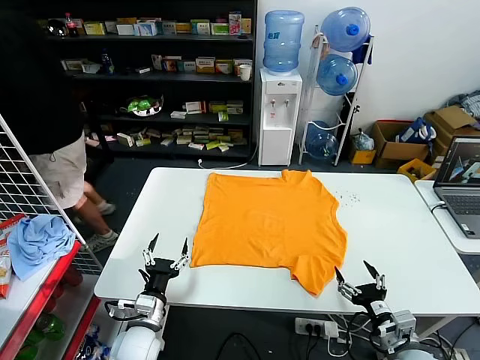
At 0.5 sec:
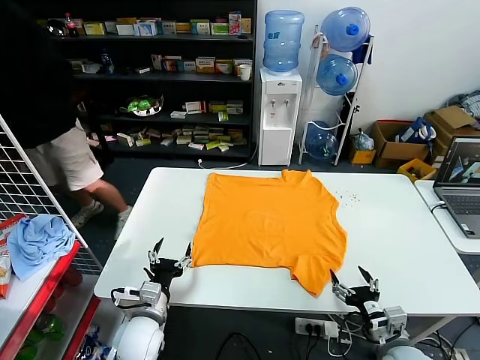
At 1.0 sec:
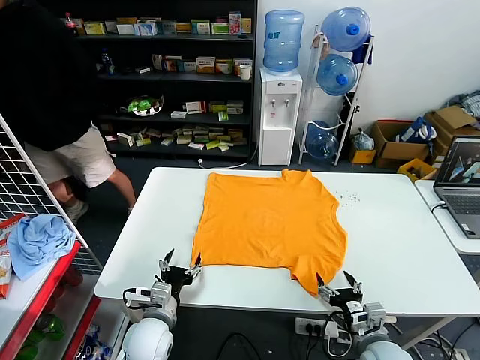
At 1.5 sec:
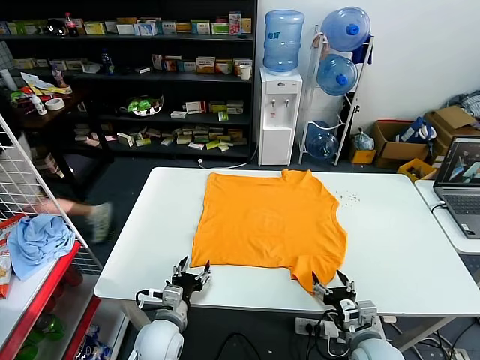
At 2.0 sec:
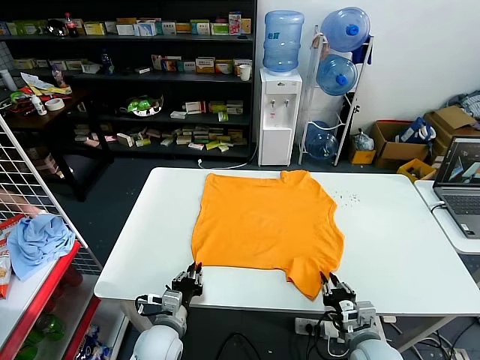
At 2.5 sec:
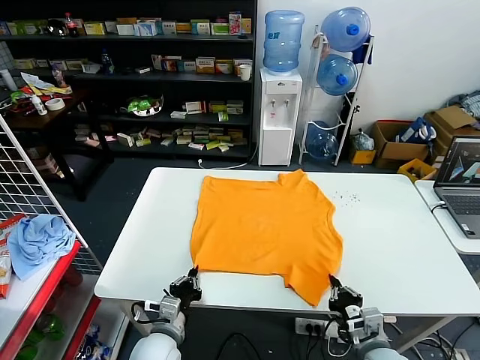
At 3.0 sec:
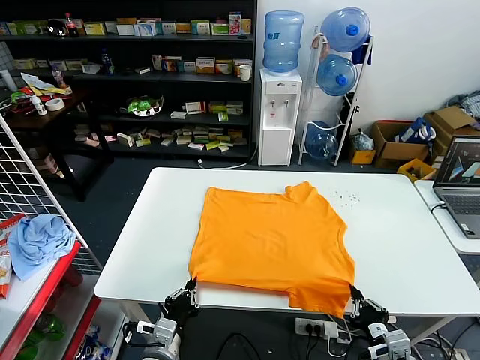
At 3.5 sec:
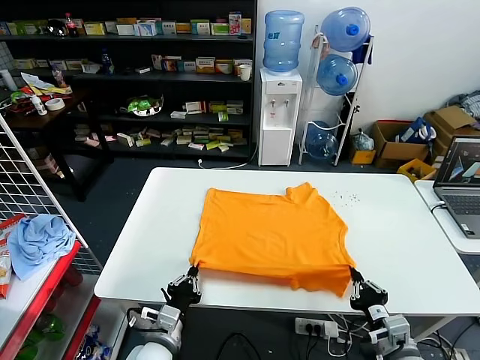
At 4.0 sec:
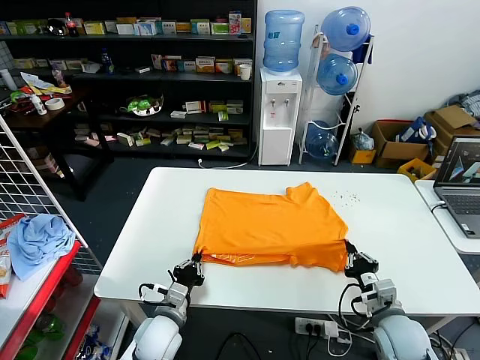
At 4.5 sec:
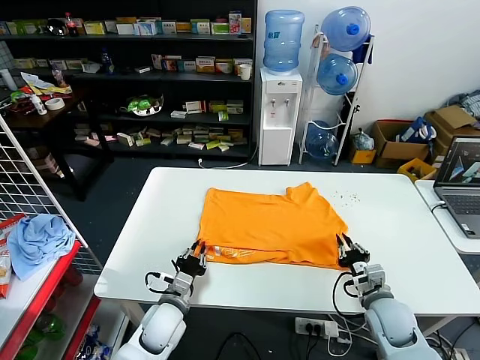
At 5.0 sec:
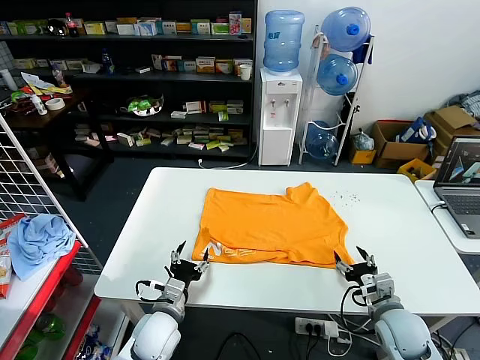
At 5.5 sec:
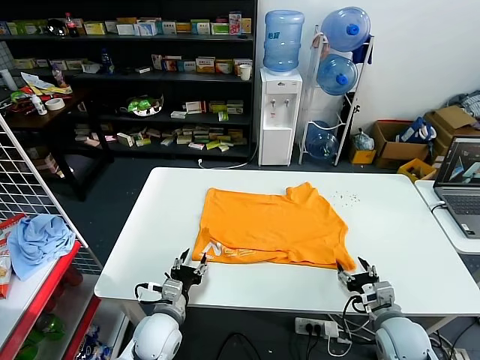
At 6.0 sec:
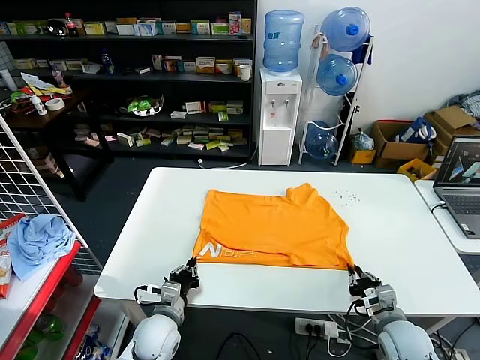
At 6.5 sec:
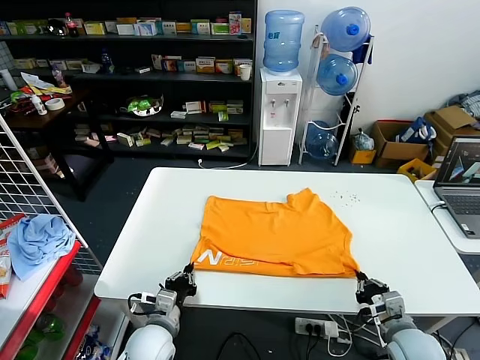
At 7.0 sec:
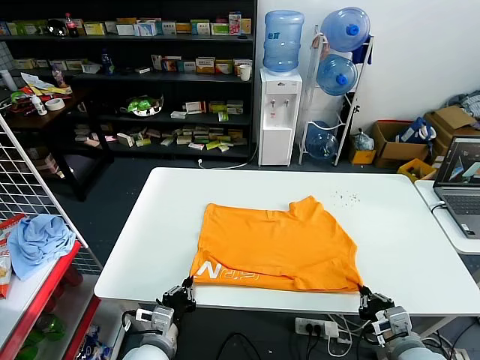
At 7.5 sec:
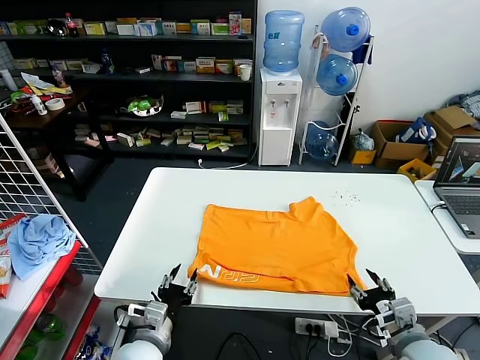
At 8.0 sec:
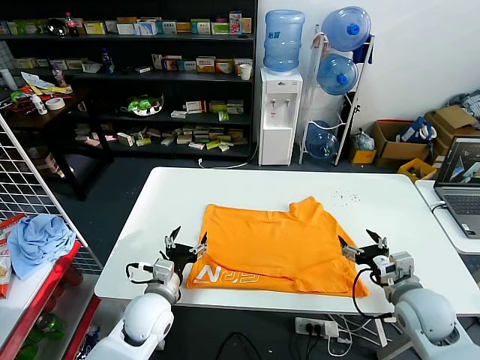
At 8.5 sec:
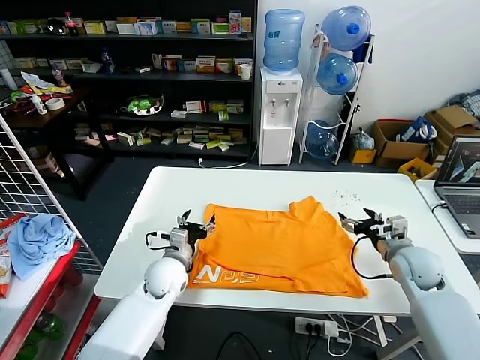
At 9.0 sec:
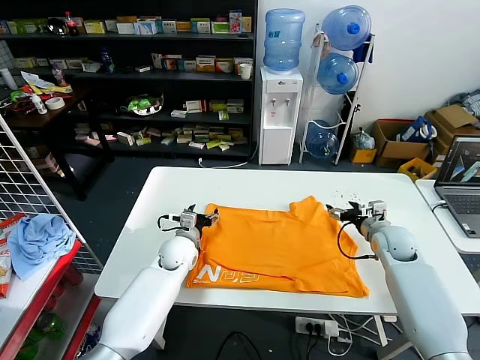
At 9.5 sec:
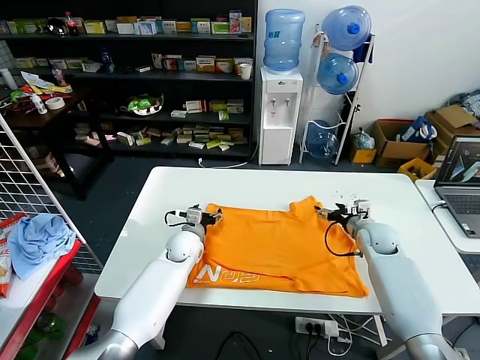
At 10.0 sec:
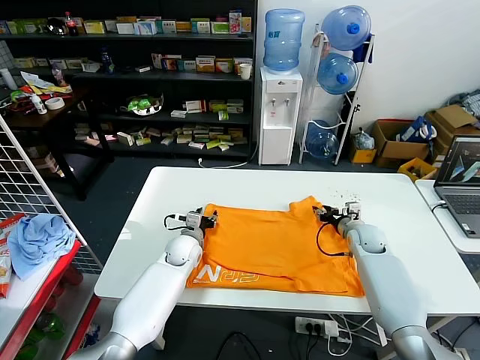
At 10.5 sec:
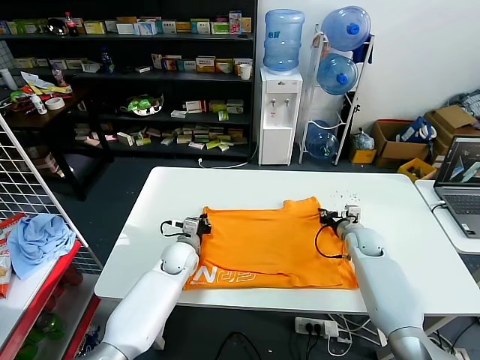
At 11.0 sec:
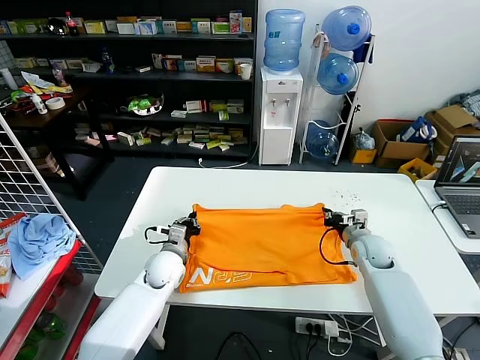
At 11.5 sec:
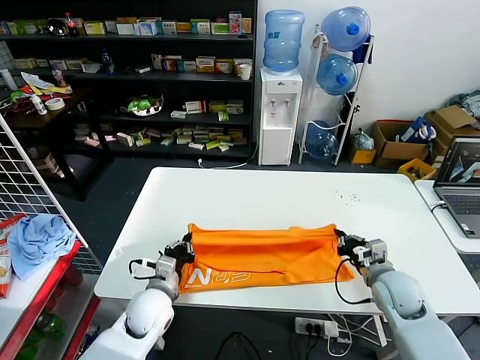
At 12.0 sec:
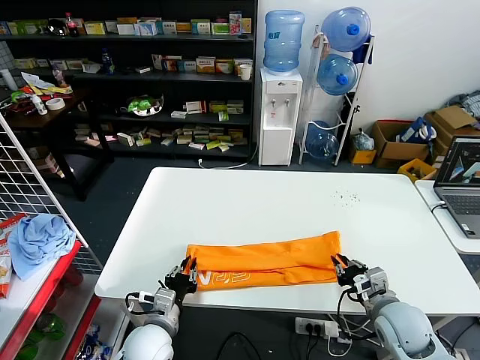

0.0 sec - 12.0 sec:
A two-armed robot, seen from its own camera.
Task of the whole recording: fold and organize the clothes.
Step, 0.0 sec - 2.5 sec: use both grippers simultaneously to clamp the lower edge of the clothing fabric.
Step, 3.0 sec - 5.0 sec: use both grippers to drag the lower edge of the fabric forward and fold it over the upper edge.
Step, 5.5 sec - 7.5 sec: Drag the clothes downward with both gripper.
Step, 8.0 sec - 10.5 sec: use both grippers simultaneously to clamp the upper edge of the clothing fabric.
2.0 sec - 4.0 sec: The left gripper moves roughly 5 cm backward and comes back. Meanwhile the right gripper ends up about 10 cm from where it was.
4.0 sec - 6.0 sec: The right gripper opens and closes again; the left gripper opens, then closes once more.
6.0 sec - 8.0 sec: The left gripper heads upward, covering approximately 5 cm, moves some 5 cm backward and comes back, and opens up, while the right gripper shifts roughly 10 cm upward, and opens up.
8.0 sec - 10.0 sec: Both grippers move forward, about 20 cm. The right gripper closes its fingers.
10.0 sec - 12.0 sec: The two grippers go some 25 cm backward. The left gripper closes up.

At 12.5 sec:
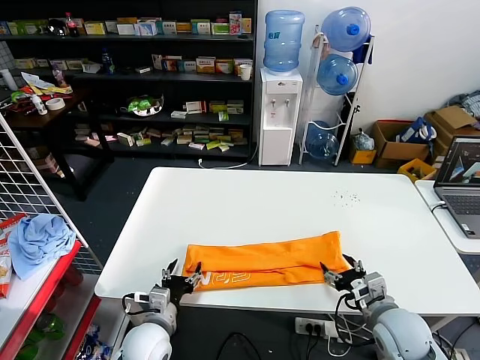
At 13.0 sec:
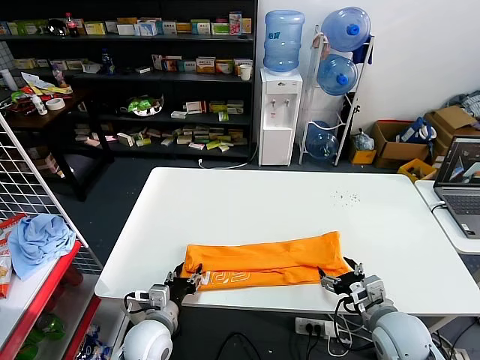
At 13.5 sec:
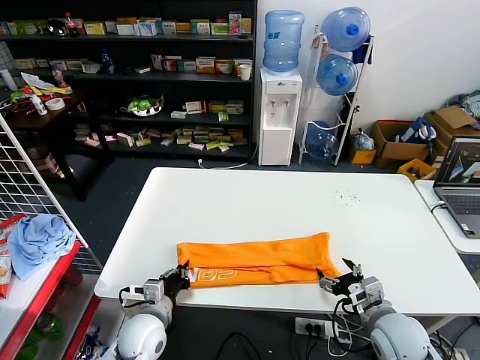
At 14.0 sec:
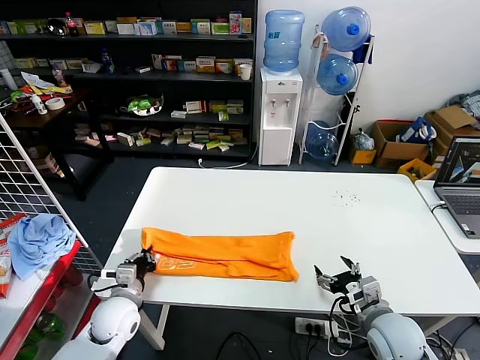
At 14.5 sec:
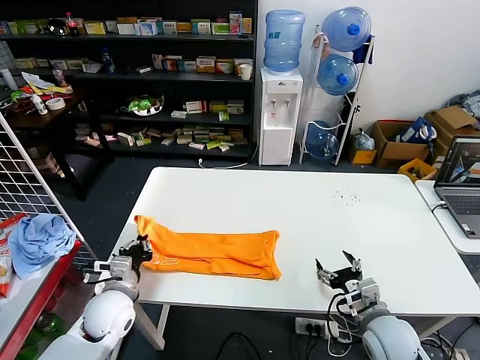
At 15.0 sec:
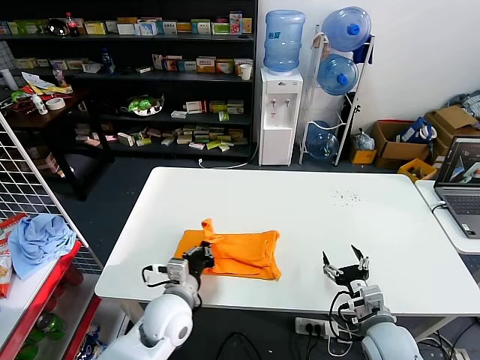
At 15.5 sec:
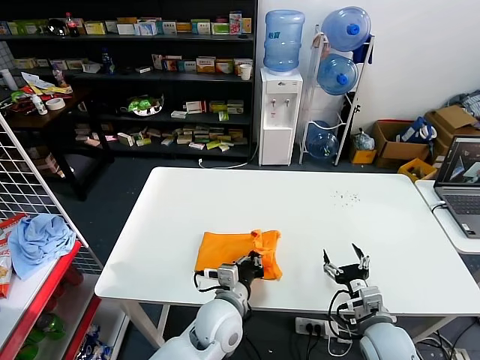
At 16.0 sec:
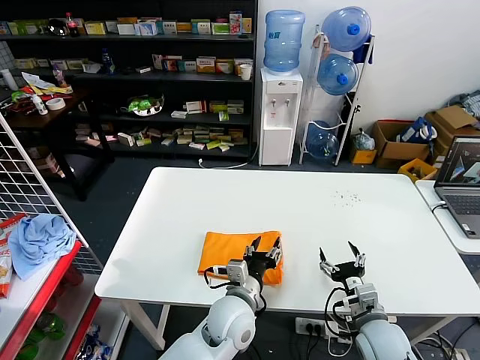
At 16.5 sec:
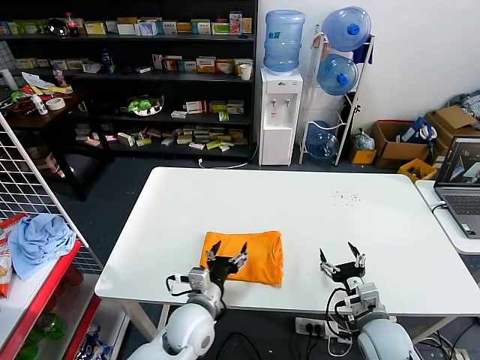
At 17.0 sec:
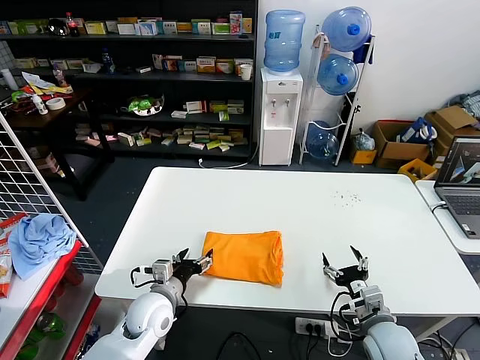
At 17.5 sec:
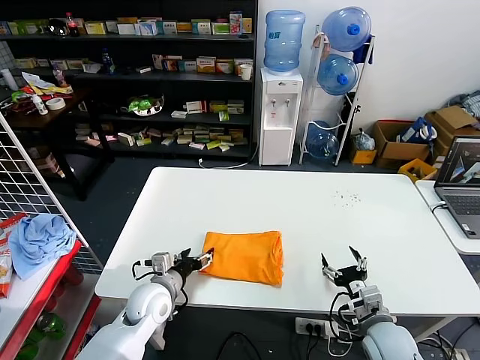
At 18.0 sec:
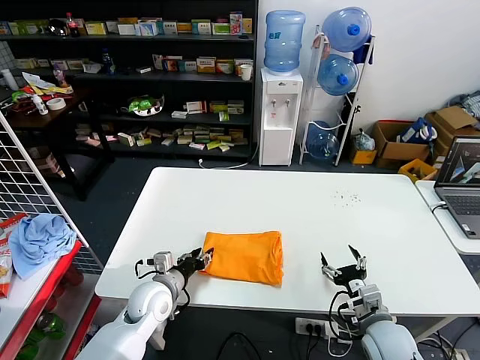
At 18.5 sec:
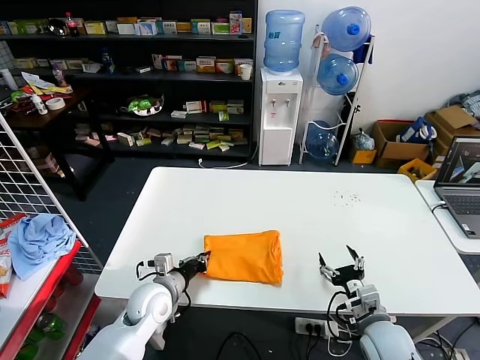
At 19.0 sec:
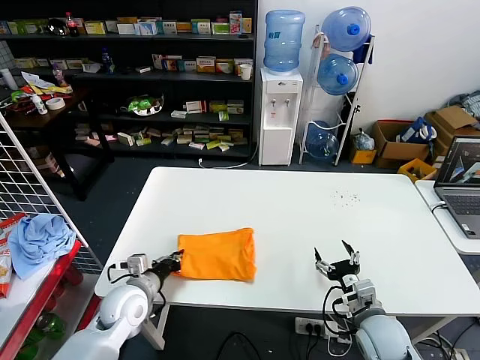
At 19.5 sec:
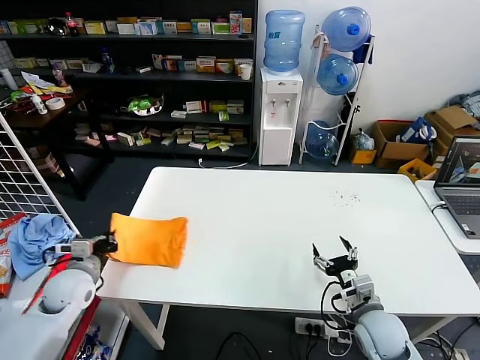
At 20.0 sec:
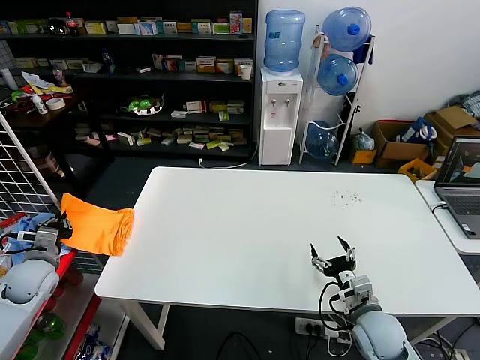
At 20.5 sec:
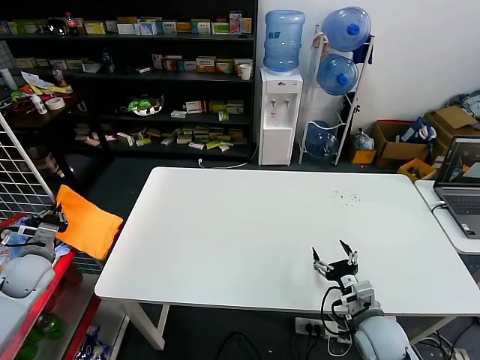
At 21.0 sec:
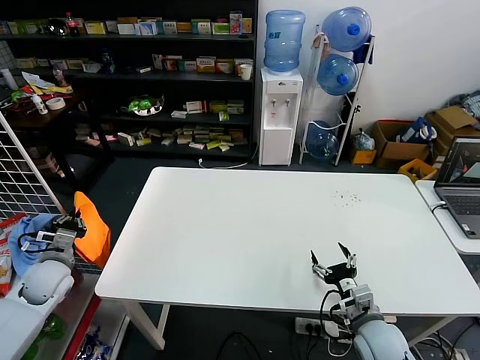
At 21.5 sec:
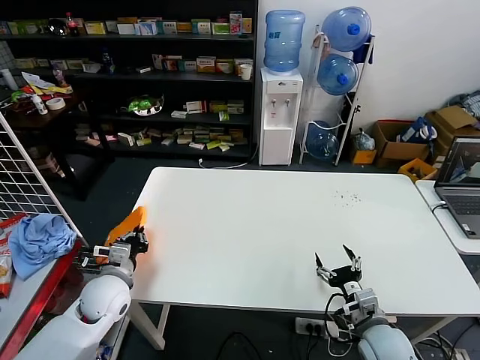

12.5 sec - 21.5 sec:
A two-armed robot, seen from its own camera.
Task of the whole recording: fold and organize the clothes.
Step, 13.5 sec - 16.0 sec: use the left gripper to drag the left edge of the fabric to the left and folds it over the right edge.
12.5 sec - 14.5 sec: The left gripper heads to the left, covering approximately 10 cm, and closes its fingers.
14.5 sec - 17.0 sec: The left gripper goes to the right and returns, roughly 25 cm each way, and opens up.
17.0 sec - 19.5 sec: The left gripper goes about 15 cm to the left, and closes up.
19.5 sec - 21.5 sec: The left gripper goes to the left and returns, some 10 cm each way.

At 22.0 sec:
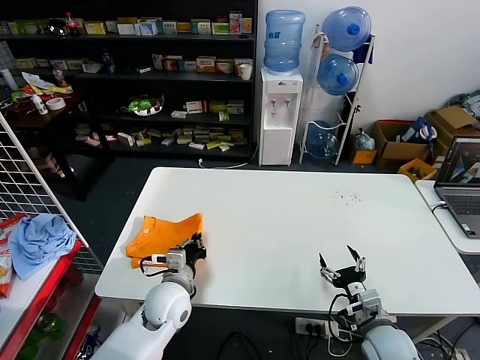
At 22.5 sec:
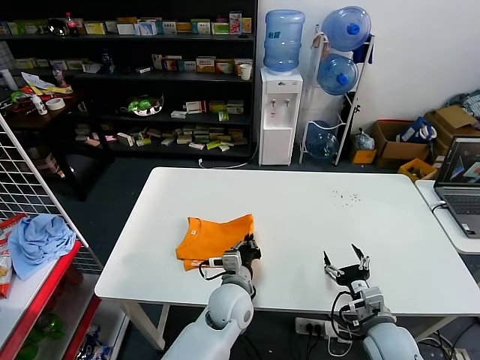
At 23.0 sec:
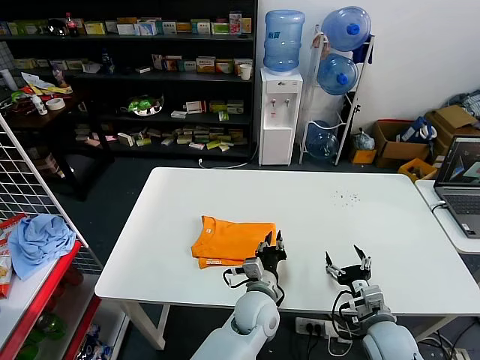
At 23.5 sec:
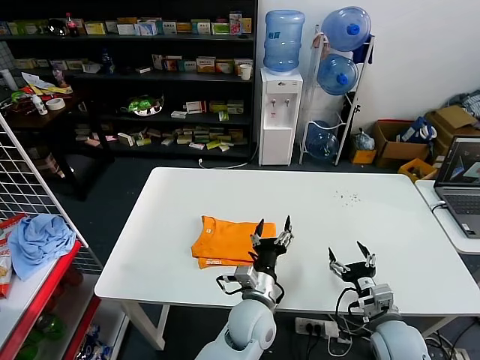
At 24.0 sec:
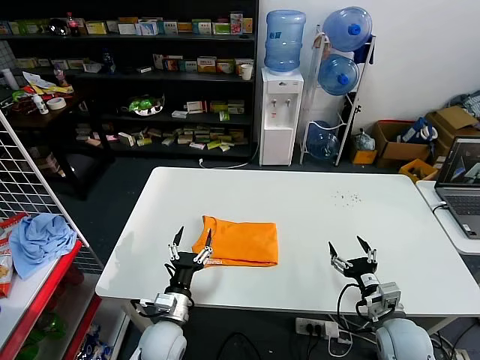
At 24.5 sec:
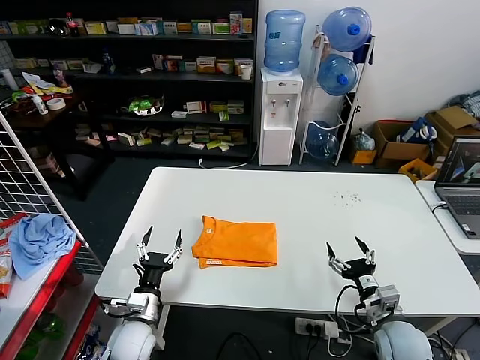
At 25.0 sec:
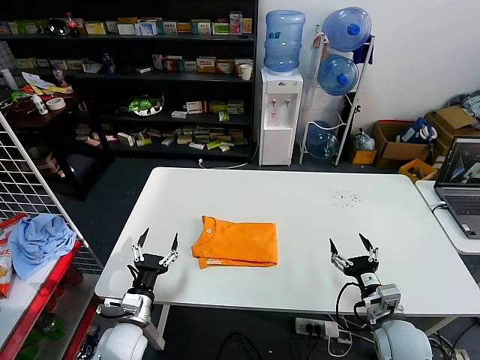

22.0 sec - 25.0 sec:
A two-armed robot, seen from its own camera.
Task of the whole recording: fold and organize the clothes.
22.0 sec - 23.5 sec: The left gripper is displaced to the right by about 20 cm, and opens its fingers.
23.5 sec - 25.0 sec: The left gripper is displaced to the left by approximately 30 cm.
